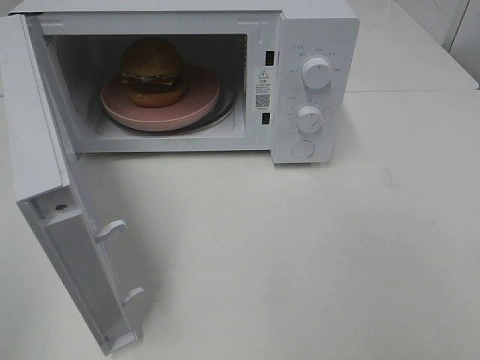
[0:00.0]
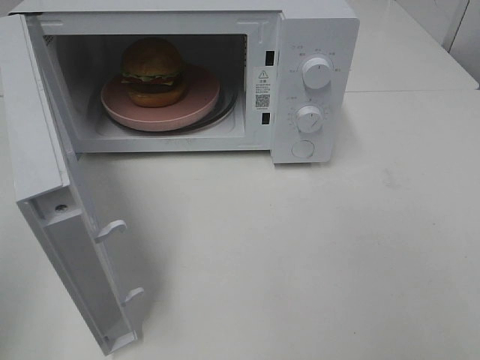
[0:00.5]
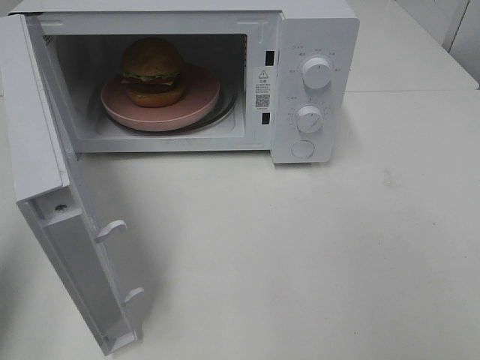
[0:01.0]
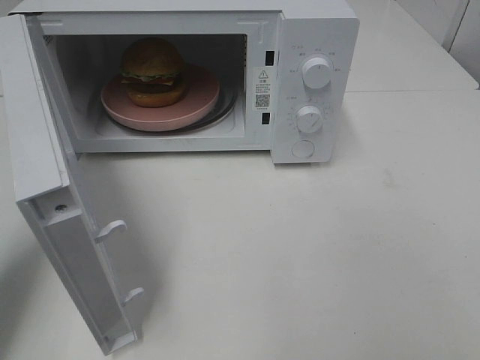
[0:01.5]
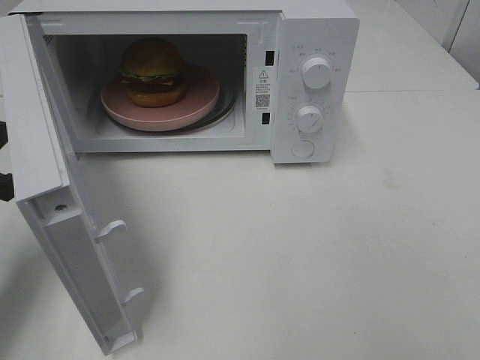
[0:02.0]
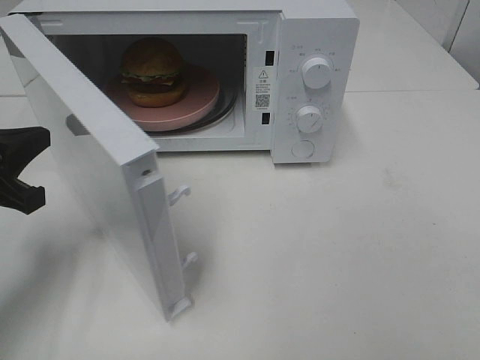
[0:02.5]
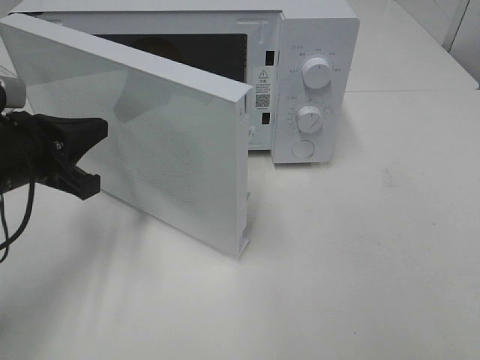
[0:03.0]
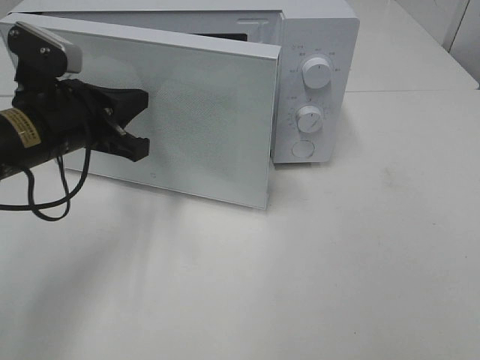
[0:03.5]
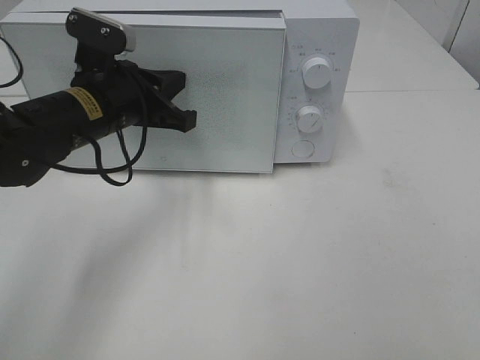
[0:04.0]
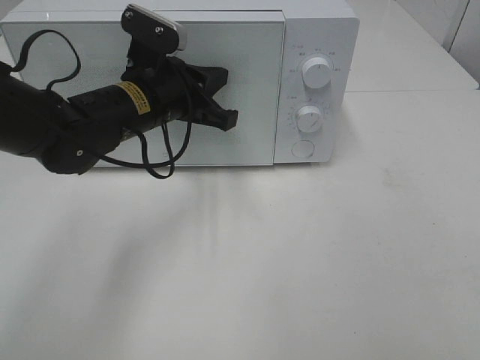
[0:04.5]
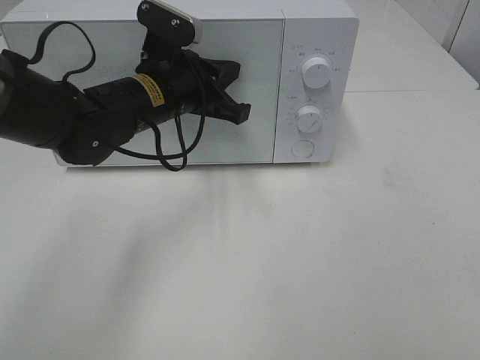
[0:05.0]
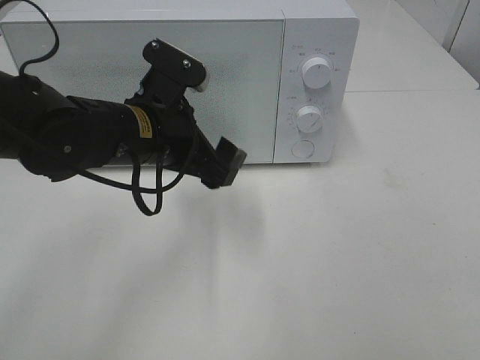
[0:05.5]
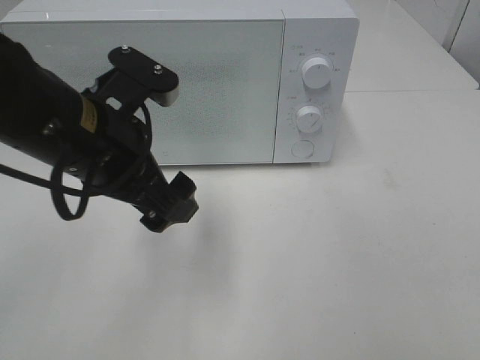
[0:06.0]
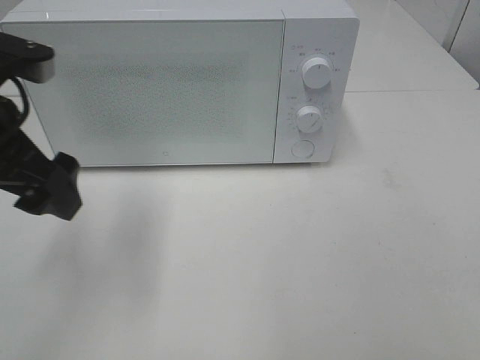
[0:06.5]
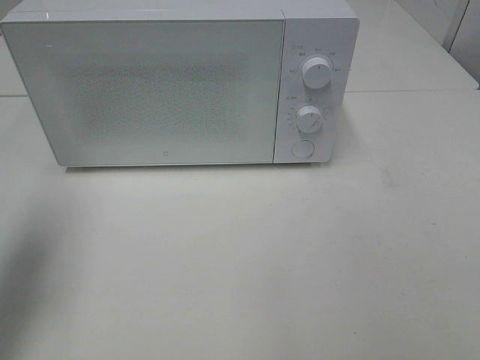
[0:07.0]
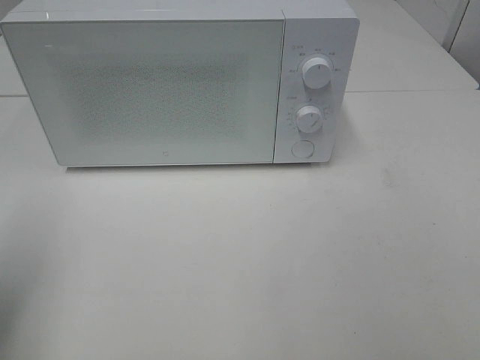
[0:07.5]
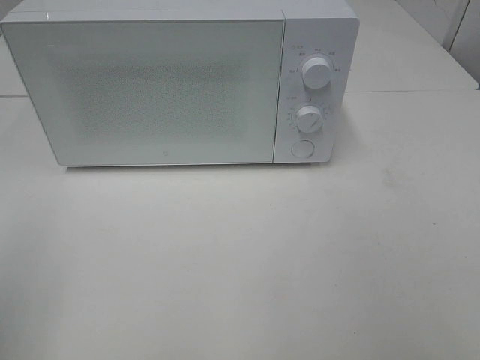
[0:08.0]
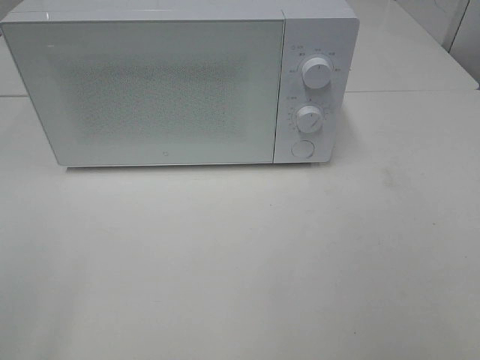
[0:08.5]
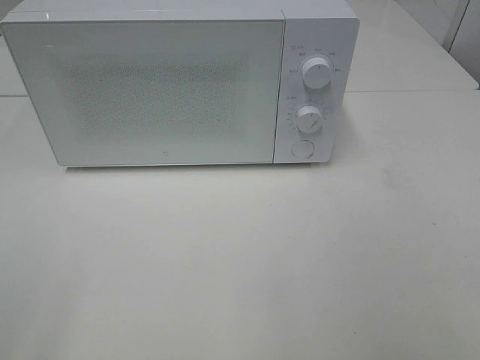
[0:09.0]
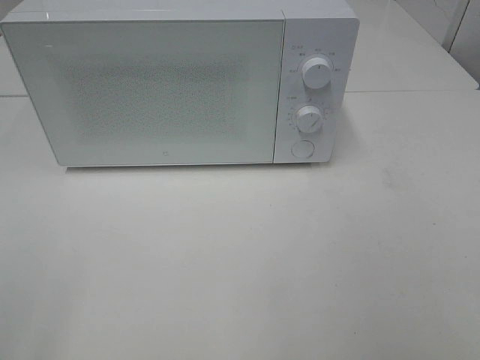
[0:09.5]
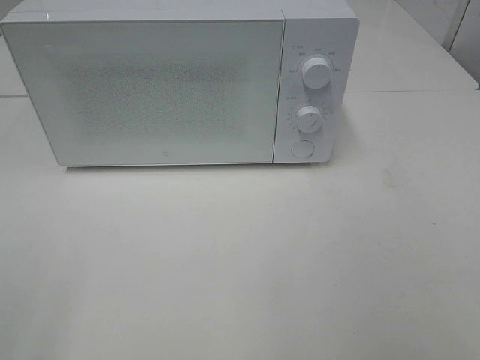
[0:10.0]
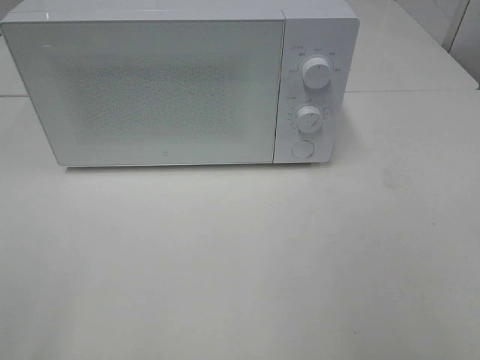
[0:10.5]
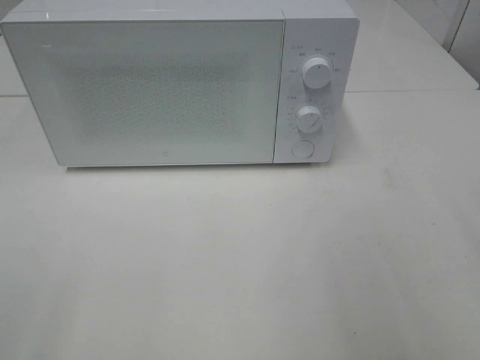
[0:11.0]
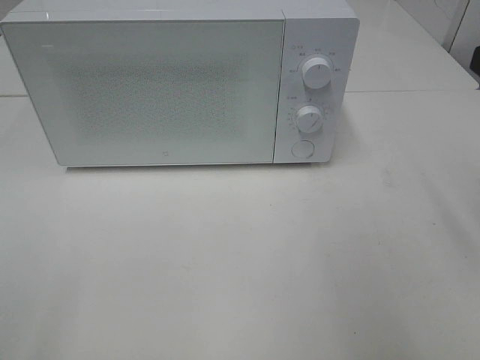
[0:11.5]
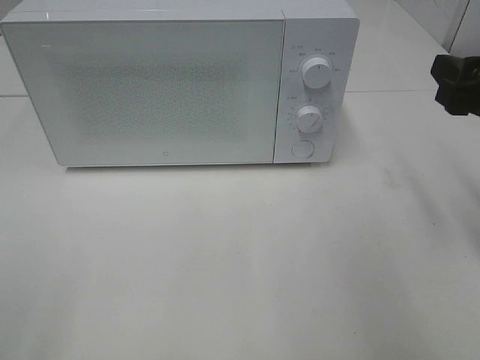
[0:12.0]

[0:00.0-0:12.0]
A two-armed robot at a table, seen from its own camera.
Task of the whole recording: Heat the burger.
Step, 0:00.0 to 0:05.0: Left hand: close the microwave door.
0:00.0 to 0:02.0: The left gripper travels forward and downward by approximately 25 cm, and closes its fingers.
0:02.0 to 0:04.0: The left gripper heads to the right and forward, covering some 20 cm.
0:04.0 to 0:06.0: The left gripper shifts about 10 cm backward, and opens its fingers.
0:06.0 to 0:08.0: The left gripper moves to the left and backward, about 25 cm.
0:10.0 to 0:12.0: The right gripper travels forward by some 25 cm.

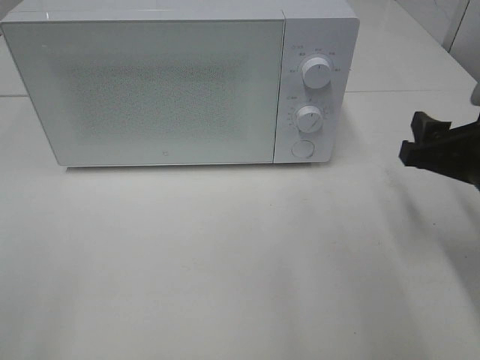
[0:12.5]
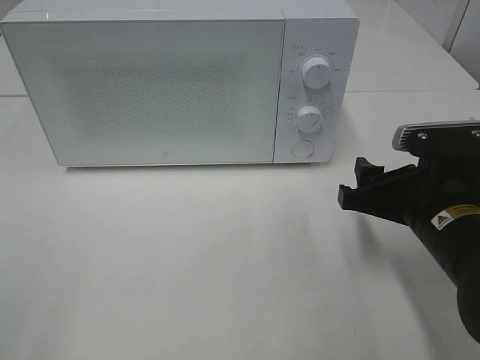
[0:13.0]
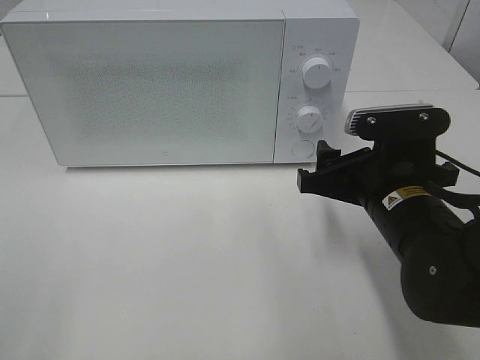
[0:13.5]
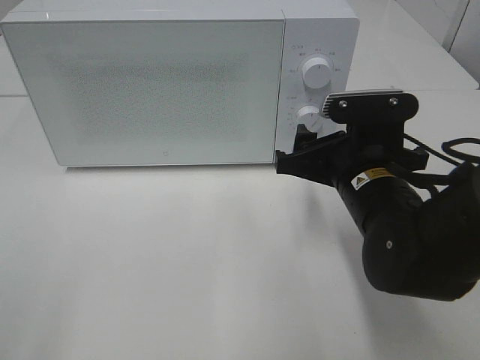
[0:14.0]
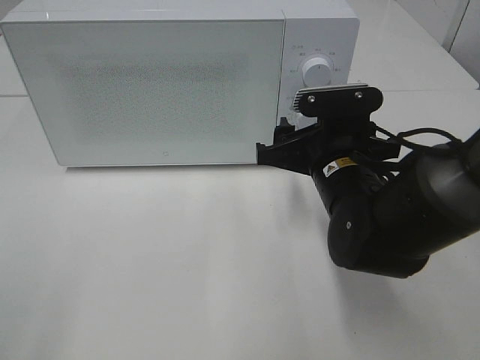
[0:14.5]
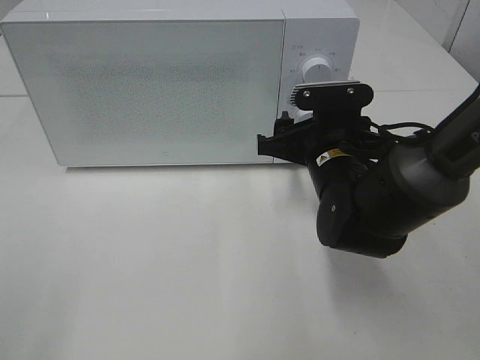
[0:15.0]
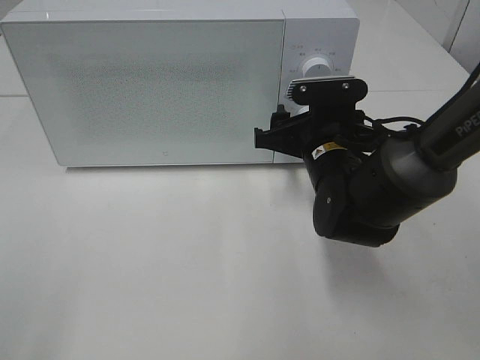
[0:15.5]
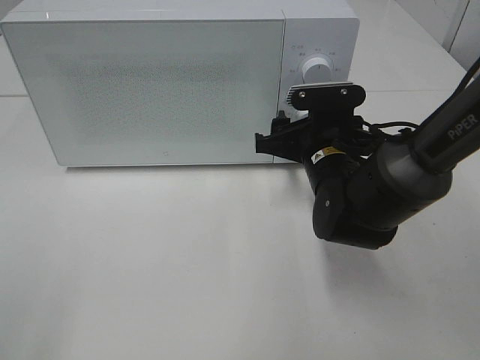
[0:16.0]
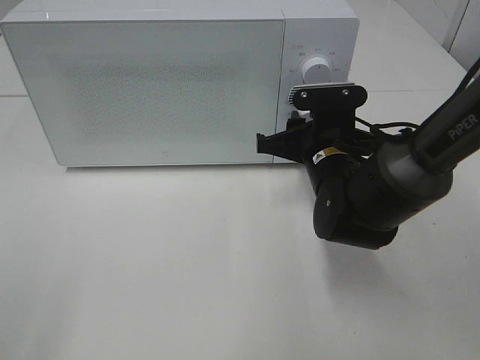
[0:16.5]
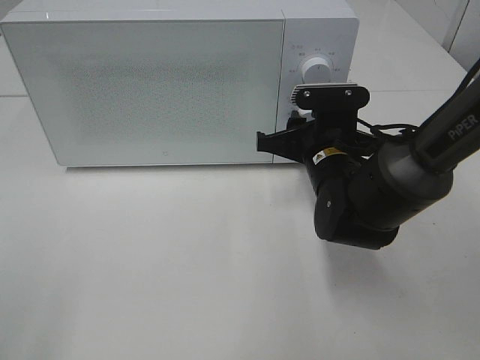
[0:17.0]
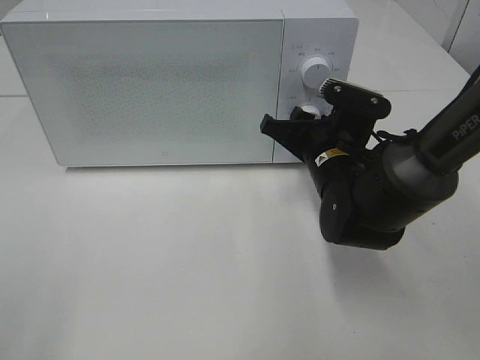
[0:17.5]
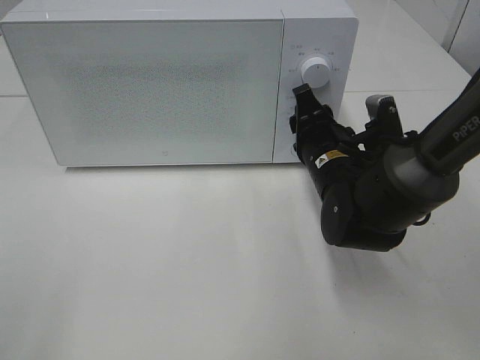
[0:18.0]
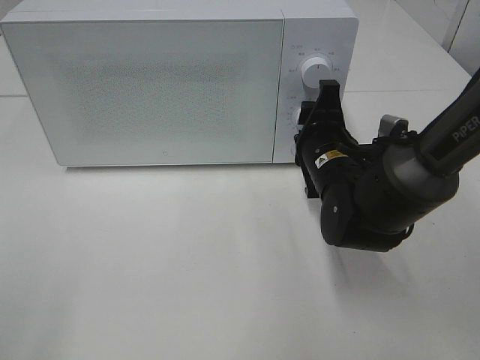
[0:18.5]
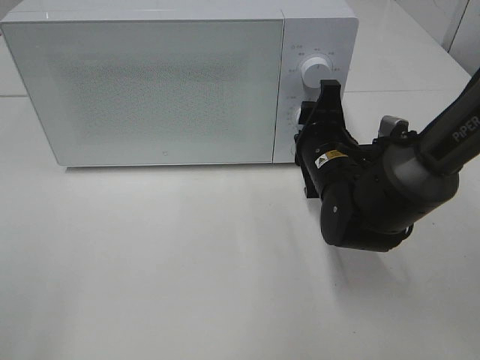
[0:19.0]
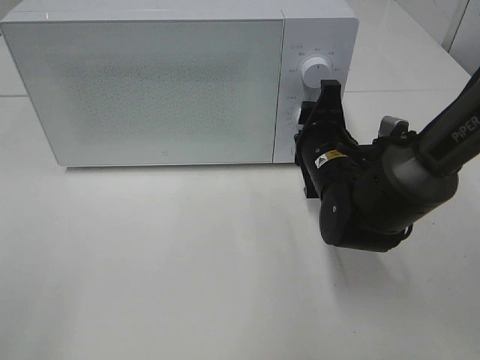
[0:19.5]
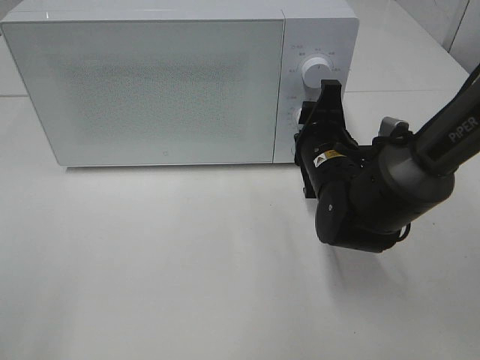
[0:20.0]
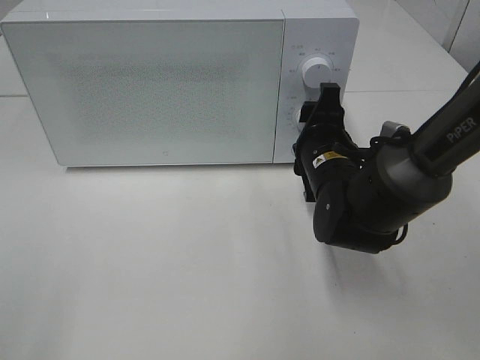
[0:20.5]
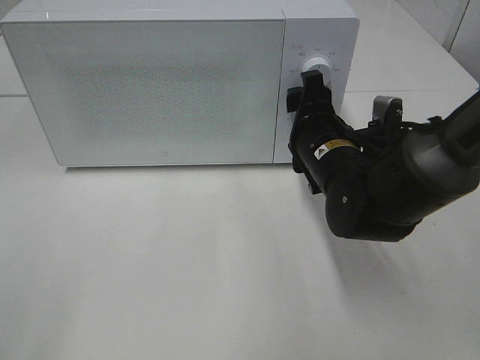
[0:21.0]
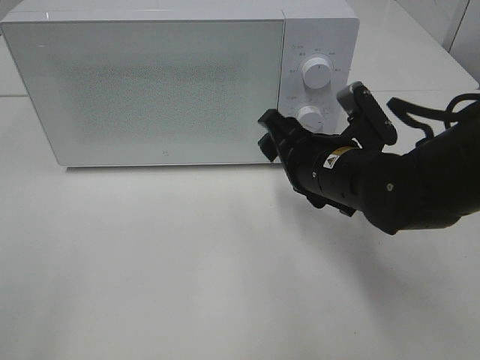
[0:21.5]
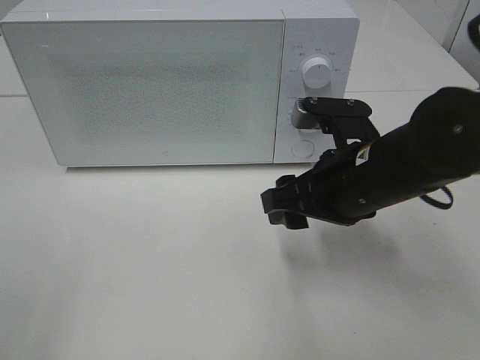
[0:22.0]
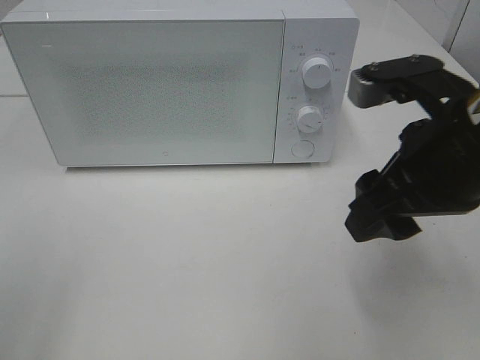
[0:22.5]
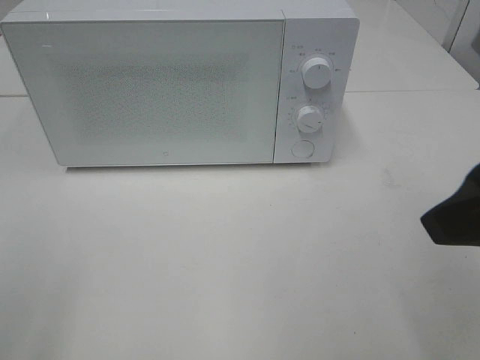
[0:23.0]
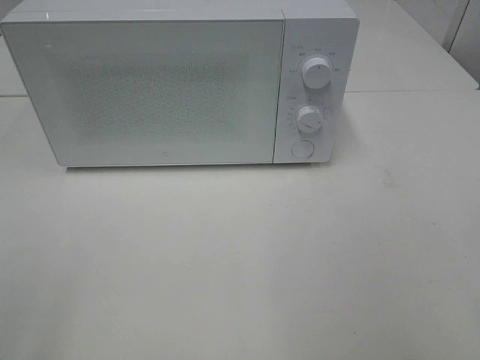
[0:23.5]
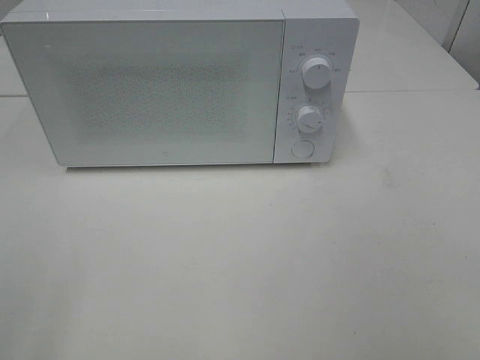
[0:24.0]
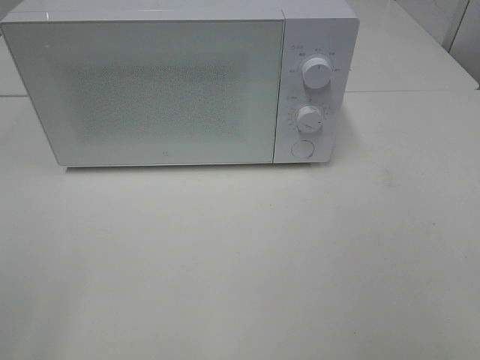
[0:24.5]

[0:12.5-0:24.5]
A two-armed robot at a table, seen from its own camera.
Task of the whole recording: Heat the burger.
Step, 0:12.5 to 0:20.5: Right hand: twist timer button.
0:12.5 to 0:14.5: The right gripper is displaced to the left and forward by approximately 15 cm.
0:14.5 to 0:16.5: The right gripper closes up.
0:18.5 to 0:20.5: Both grippers stay about where they are.
0:20.5 to 0:22.5: The right gripper is displaced upward and backward by roughly 20 cm.
0:22.5 to 0:24.5: The right gripper heads backward and to the right, covering some 25 cm.

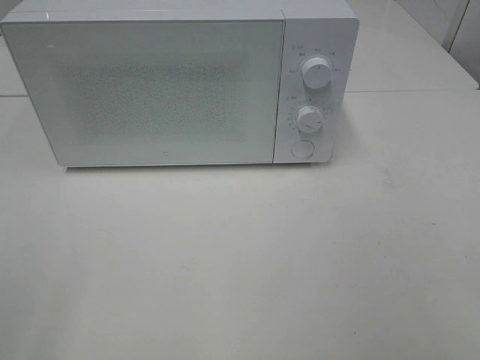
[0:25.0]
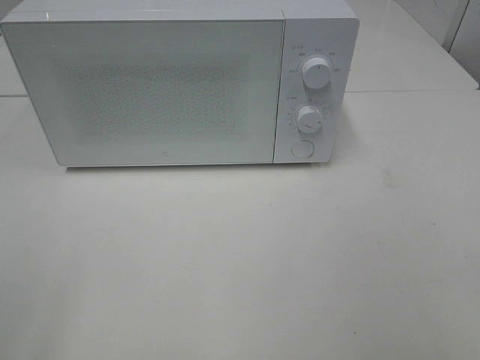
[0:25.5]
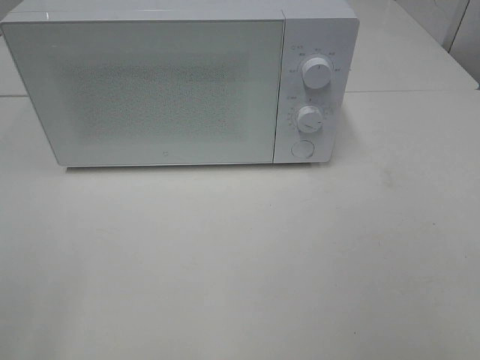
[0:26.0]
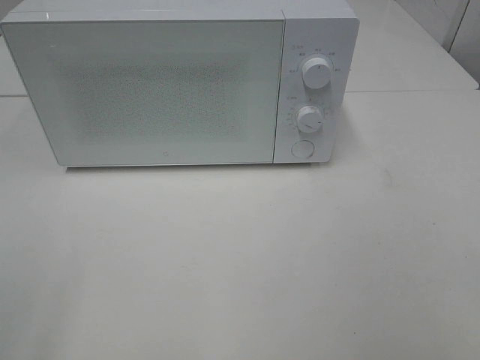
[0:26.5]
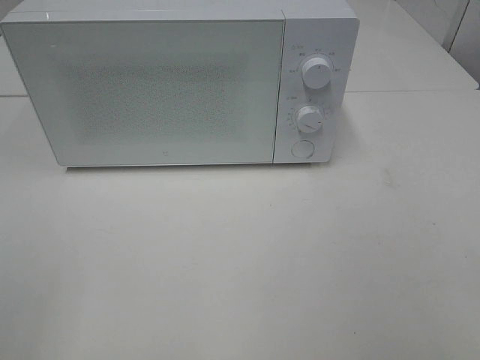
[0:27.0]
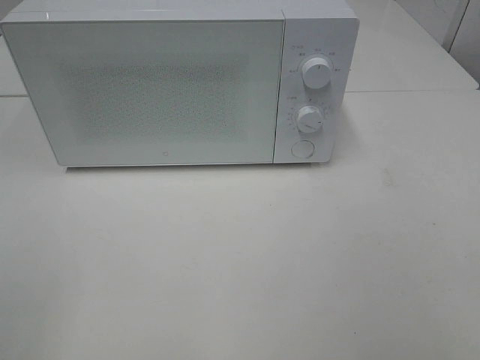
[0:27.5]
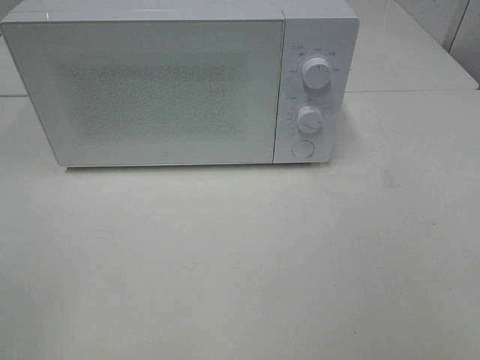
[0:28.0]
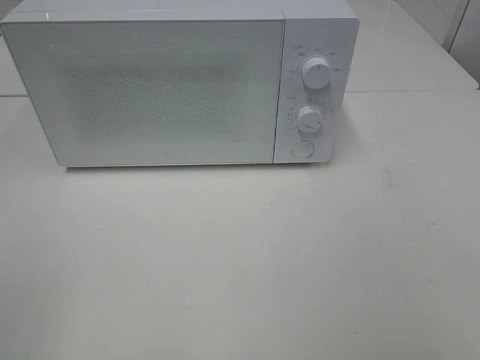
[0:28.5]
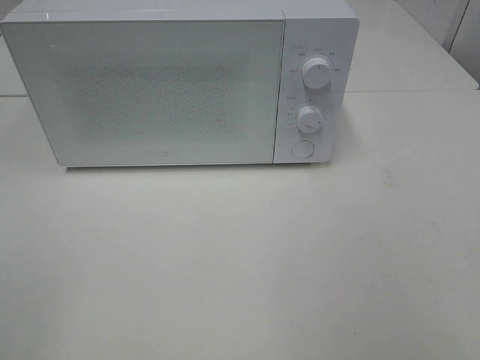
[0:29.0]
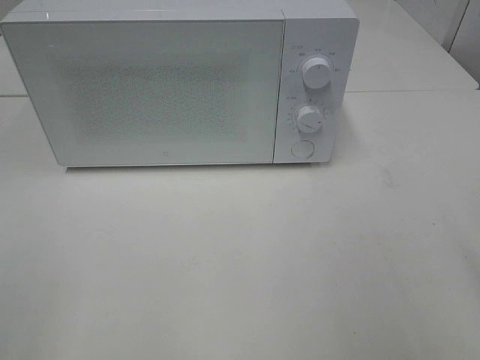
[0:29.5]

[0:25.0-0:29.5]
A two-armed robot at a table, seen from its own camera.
Task of the whole recording: Heat the burger.
0:25.0 to 0:27.0: The two grippers keep their place.
